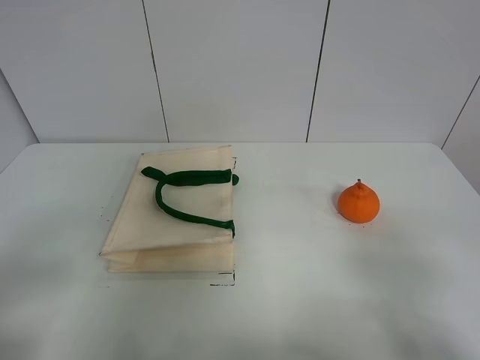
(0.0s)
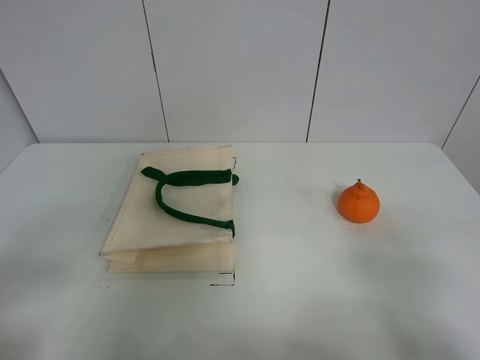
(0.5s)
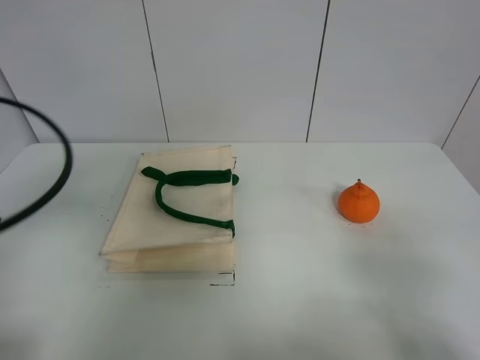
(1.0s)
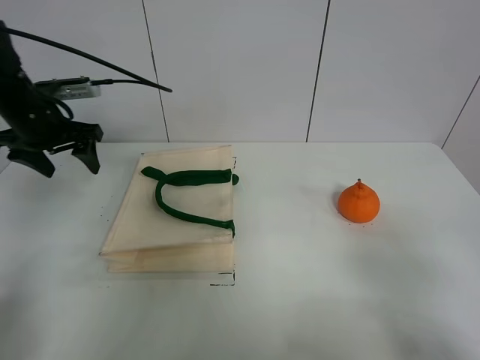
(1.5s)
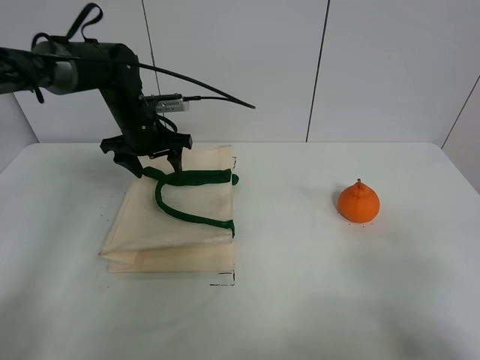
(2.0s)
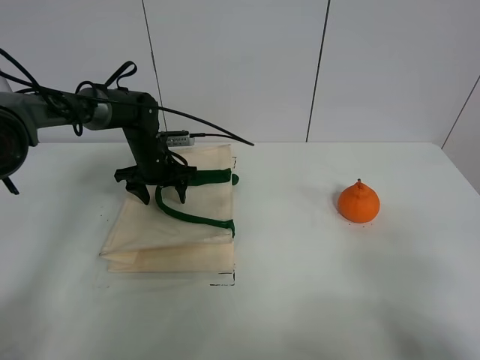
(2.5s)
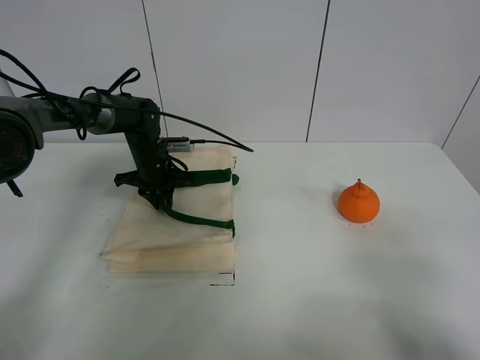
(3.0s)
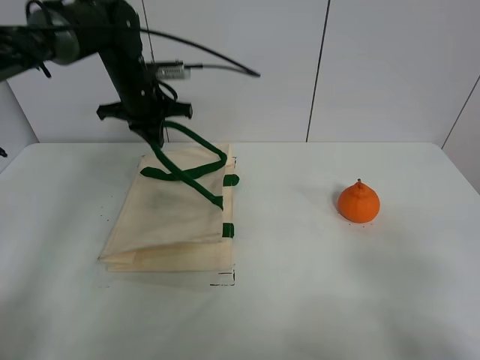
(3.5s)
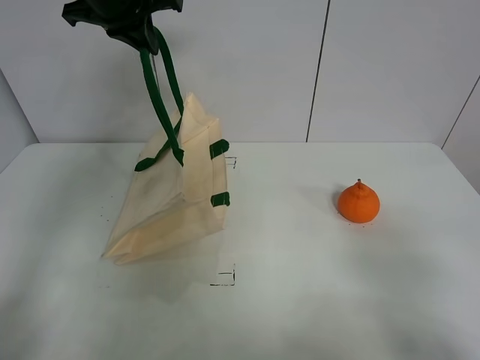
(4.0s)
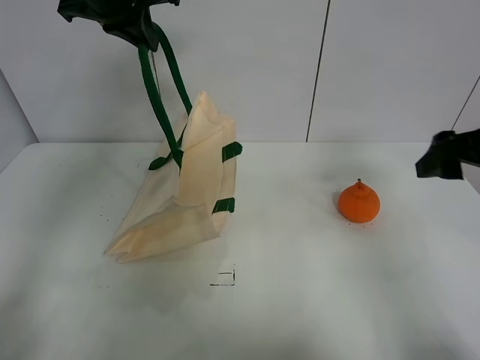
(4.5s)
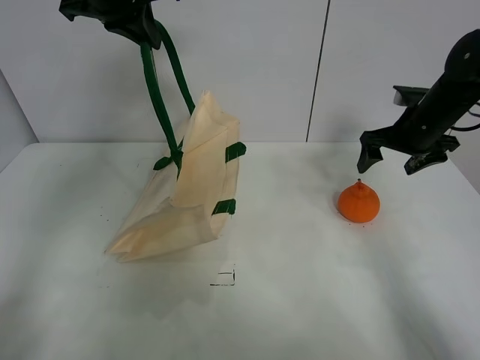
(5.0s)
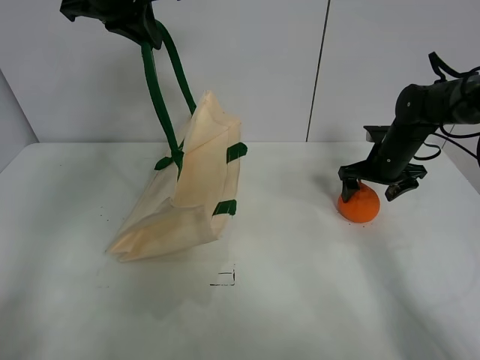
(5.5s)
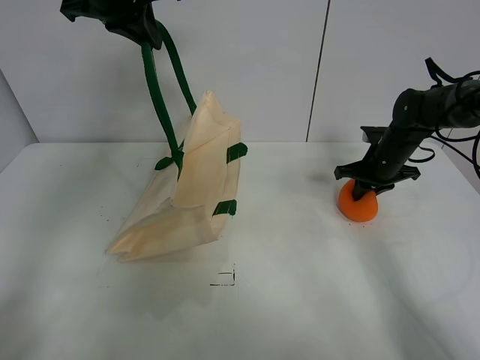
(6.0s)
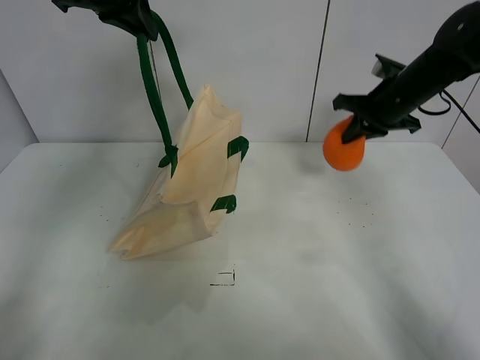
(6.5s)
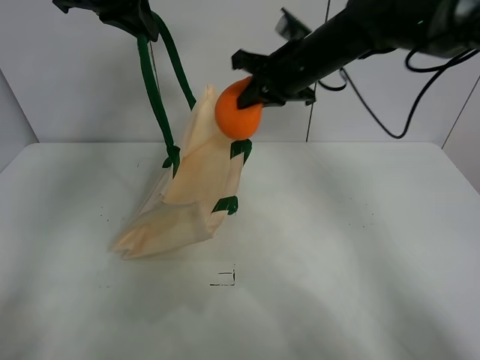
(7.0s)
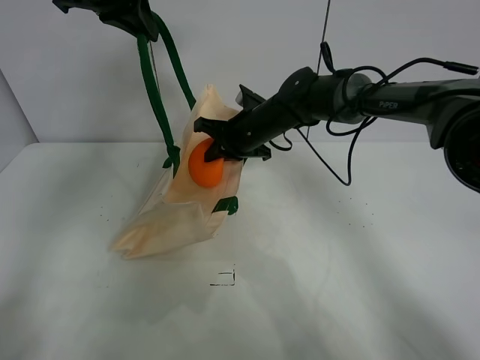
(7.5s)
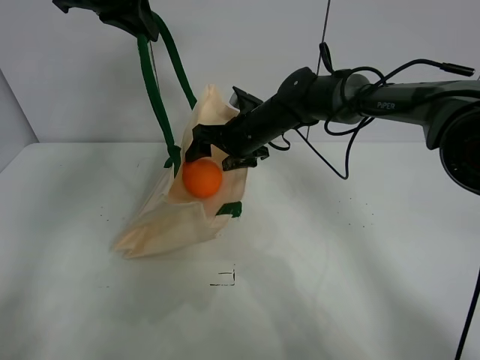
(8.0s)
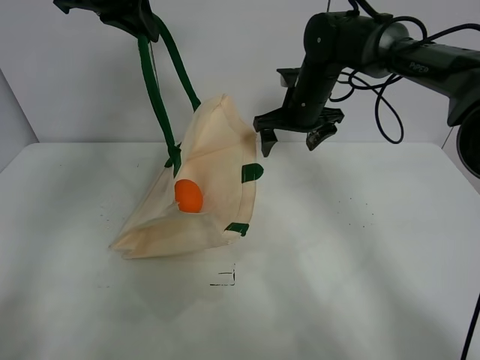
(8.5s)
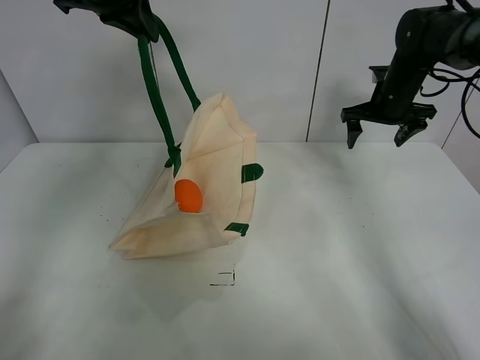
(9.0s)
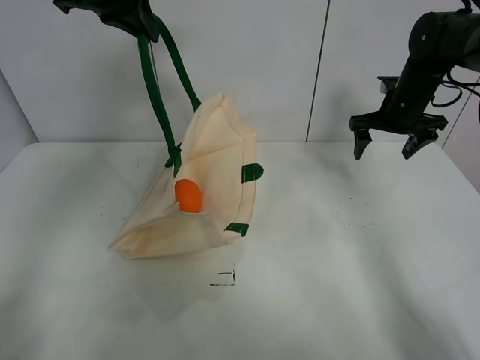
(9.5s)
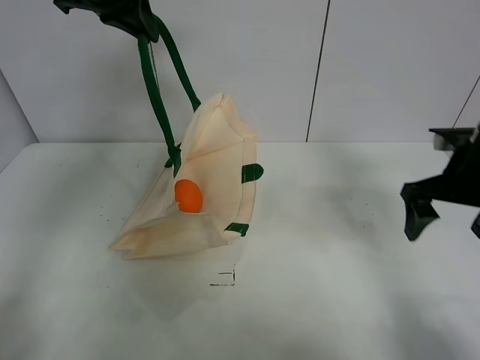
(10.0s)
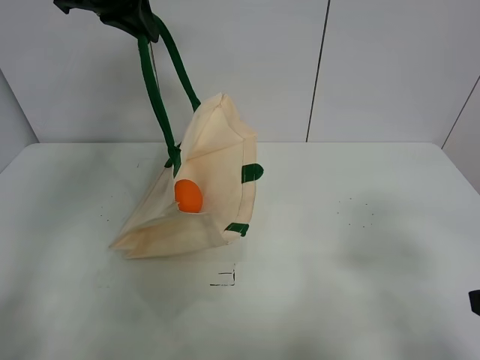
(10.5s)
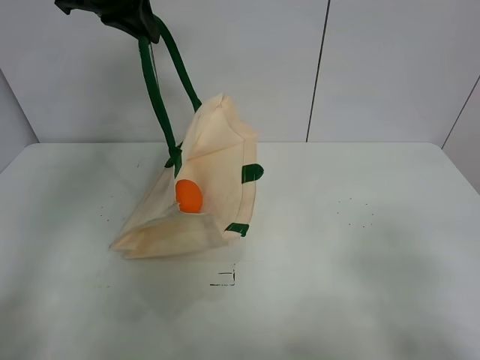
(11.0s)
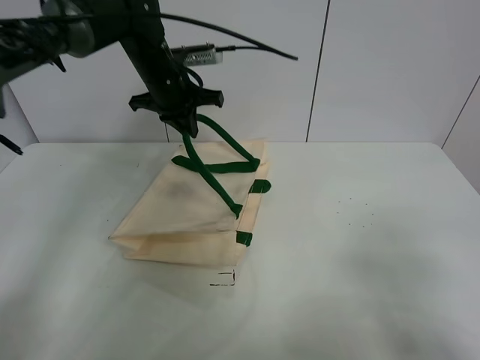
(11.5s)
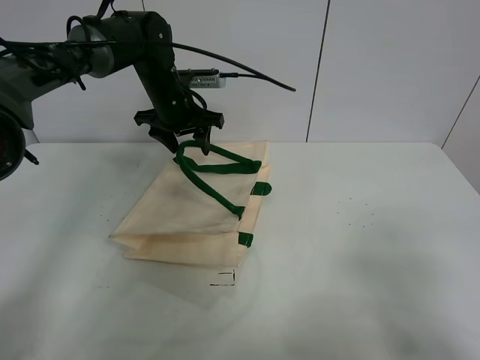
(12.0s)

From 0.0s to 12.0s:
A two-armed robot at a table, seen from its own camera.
Task of the whole recording: open the white linen bag and put the orange in the bag.
Step, from 0.0s to 3.5s: Lift the handbag with left gripper.
Step, from 4.0s to 6.0s: Grasp the orange with right gripper.
Step, from 6.5s to 8.0s: Place the orange in the handbag with right gripper.
Step, from 8.5s to 12.0s: Put down the handbag with left gripper.
From 0.0s to 2.0s: The left gripper shifts roughly 40 cm forward.
From 2.0s to 4.0s: The left gripper shifts approximately 20 cm upward, and closes.
From 4.0s to 6.0s: The right gripper shifts about 40 cm forward, and closes up.
From 6.0s to 8.0s: The right gripper travels to the left by about 25 cm, and opens up.
From 8.0s to 10.0s: The right gripper is displaced to the right and backward by approximately 30 cm.
From 10.0s to 12.0s: The right gripper travels backward by approximately 25 cm; the left gripper shifts about 20 cm downward, and opens.

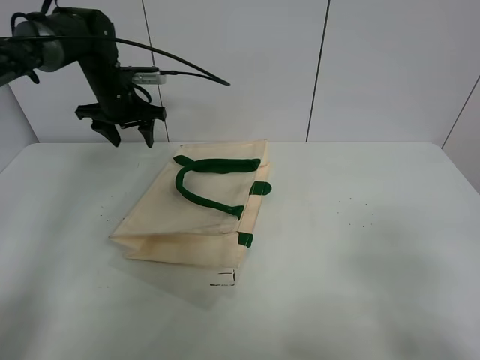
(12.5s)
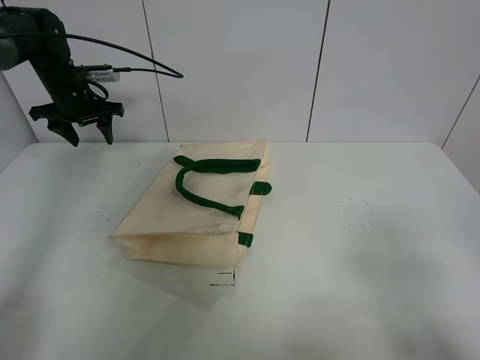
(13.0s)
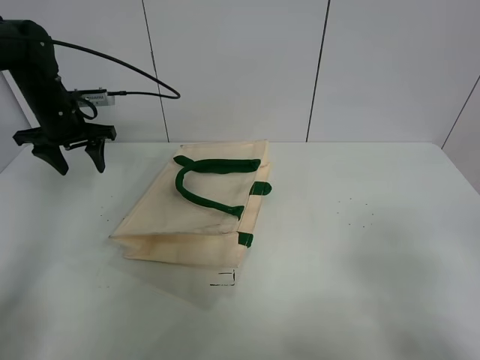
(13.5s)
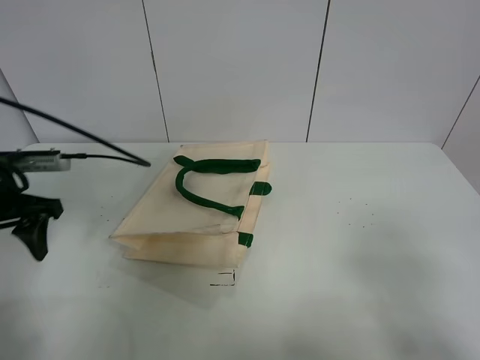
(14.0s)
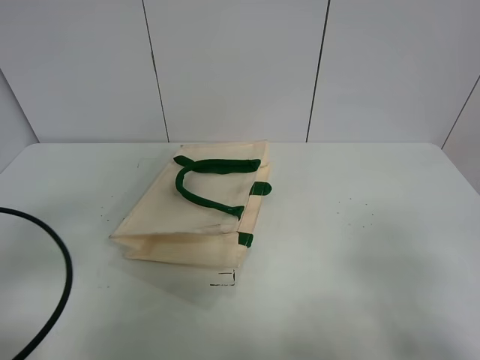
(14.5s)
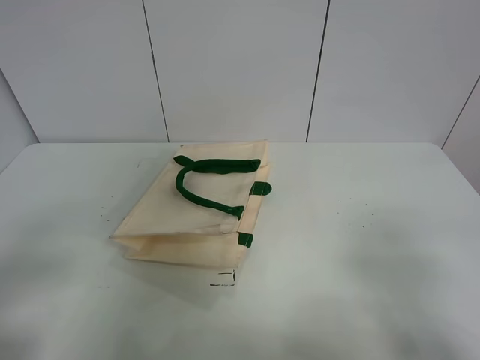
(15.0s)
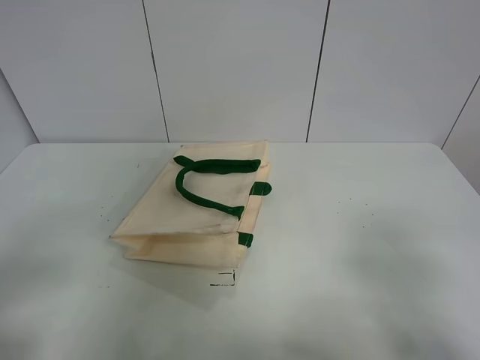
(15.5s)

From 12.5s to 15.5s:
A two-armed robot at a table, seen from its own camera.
Task of the whole recording: open the white linen bag and put the orange in the bag.
From 12.5s to 14.0s: The left gripper is displaced backward by roughly 25 cm.
From 14.0s to 15.5s: The left gripper moves backward, some 25 cm.
